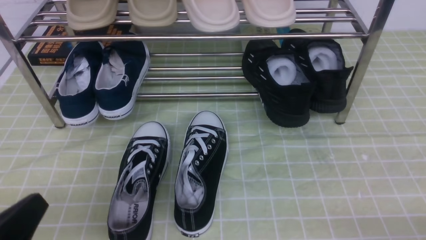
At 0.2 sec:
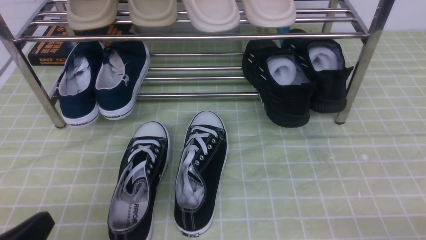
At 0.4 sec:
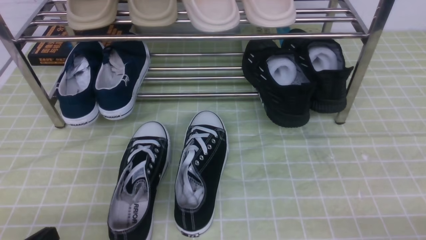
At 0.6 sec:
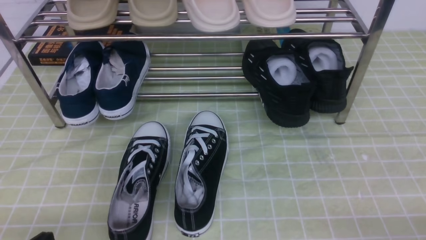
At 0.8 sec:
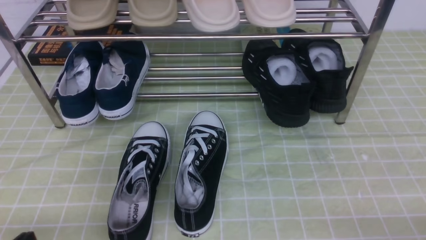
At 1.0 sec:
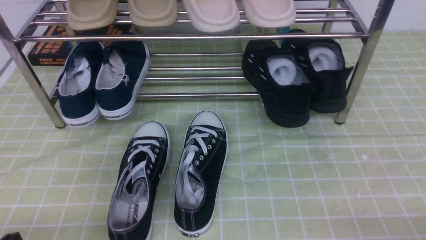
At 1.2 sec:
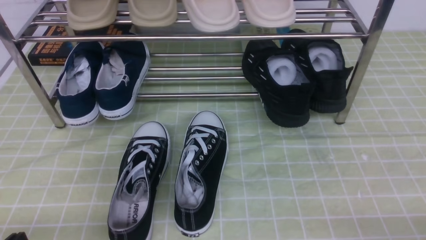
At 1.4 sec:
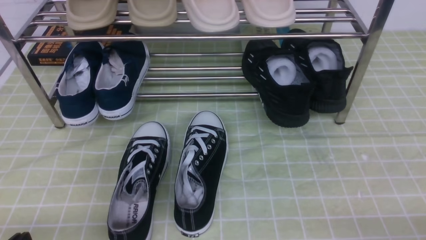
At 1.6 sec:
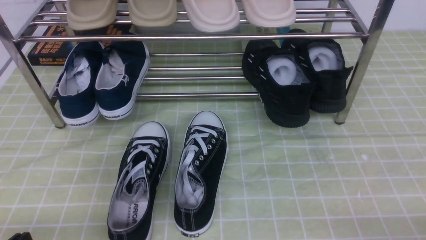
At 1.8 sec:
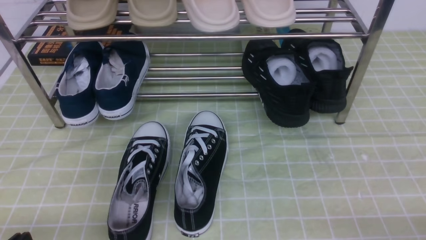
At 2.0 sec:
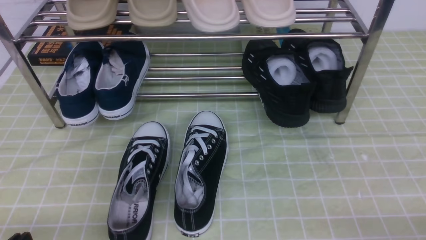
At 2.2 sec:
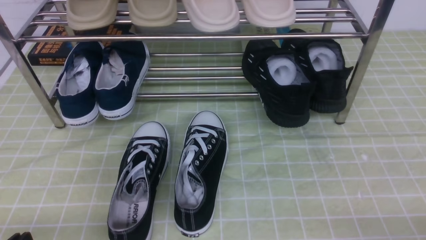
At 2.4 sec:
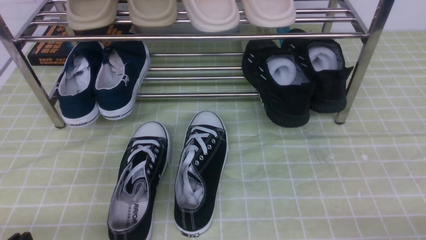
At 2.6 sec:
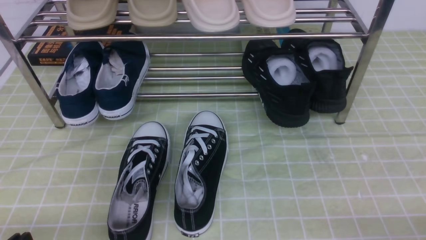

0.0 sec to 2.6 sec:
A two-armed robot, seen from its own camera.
0.0 sec to 1.2 sec: The left gripper moves downward, approximately 5 cm.
1.2 sec to 2.6 sec: Neither gripper changes place.
